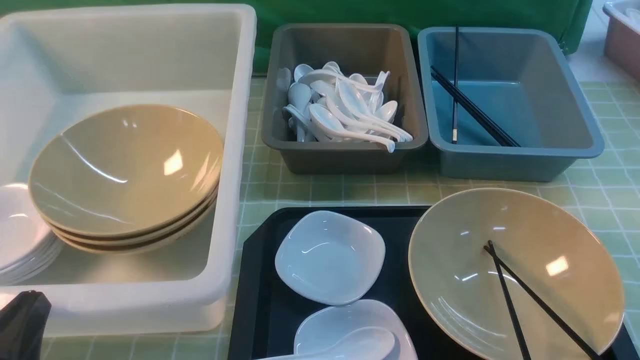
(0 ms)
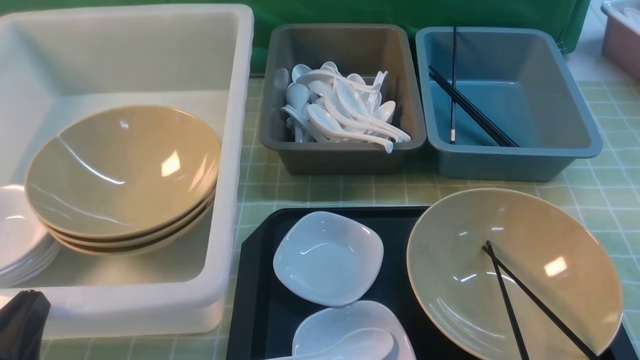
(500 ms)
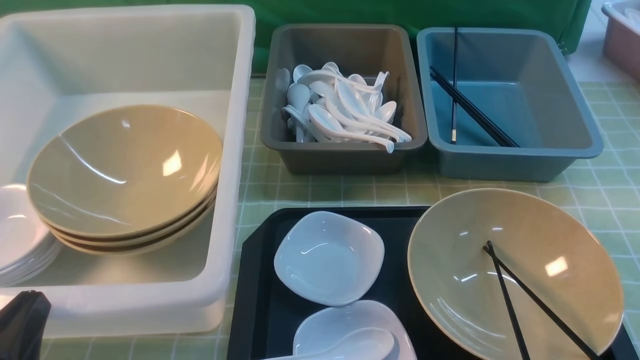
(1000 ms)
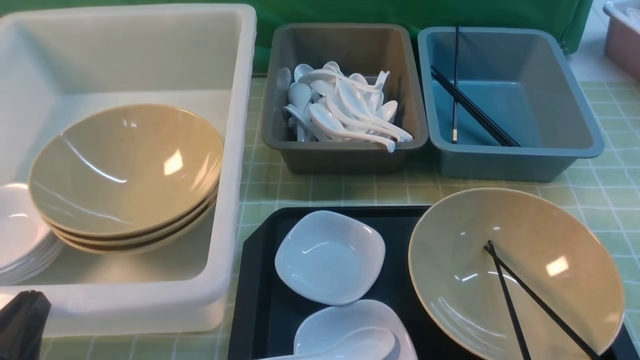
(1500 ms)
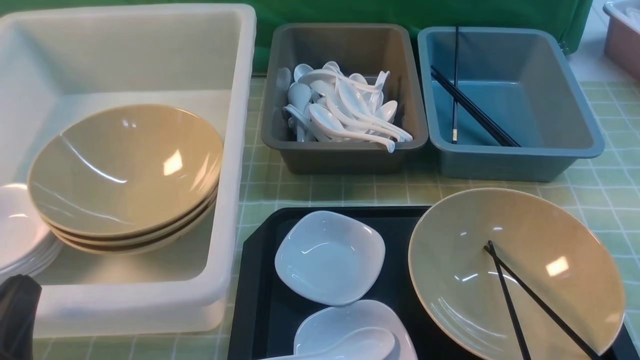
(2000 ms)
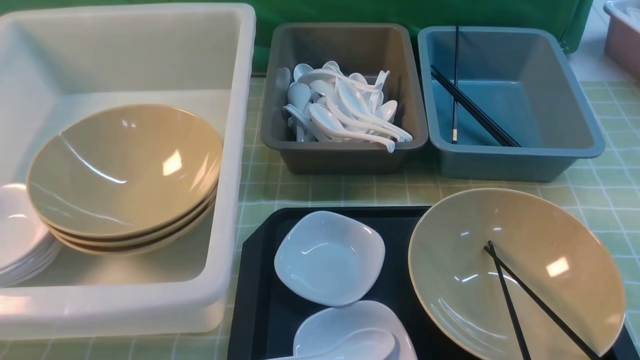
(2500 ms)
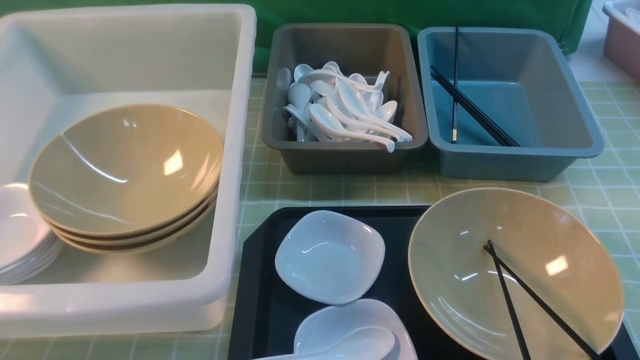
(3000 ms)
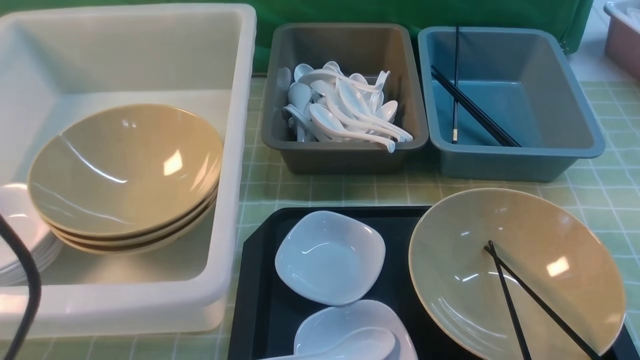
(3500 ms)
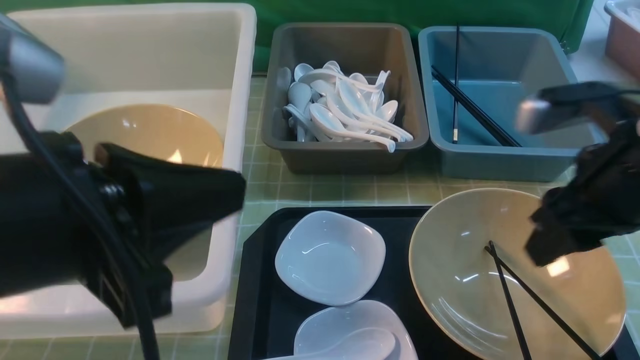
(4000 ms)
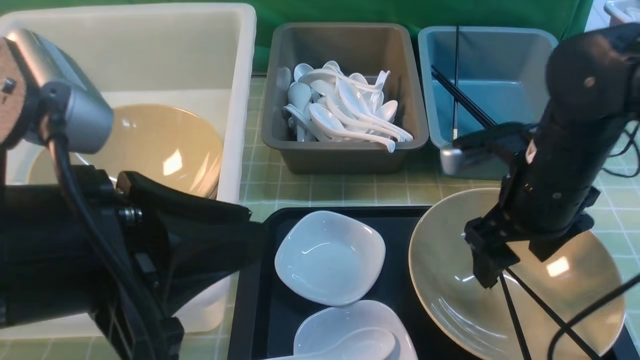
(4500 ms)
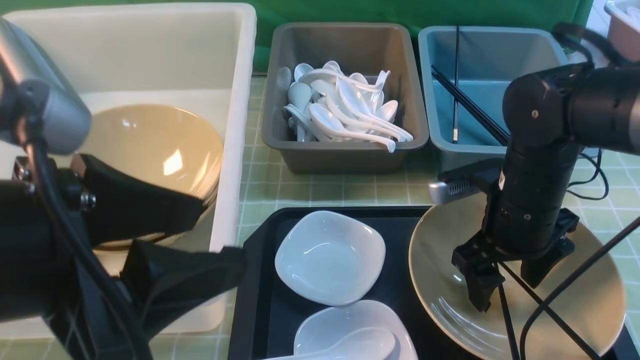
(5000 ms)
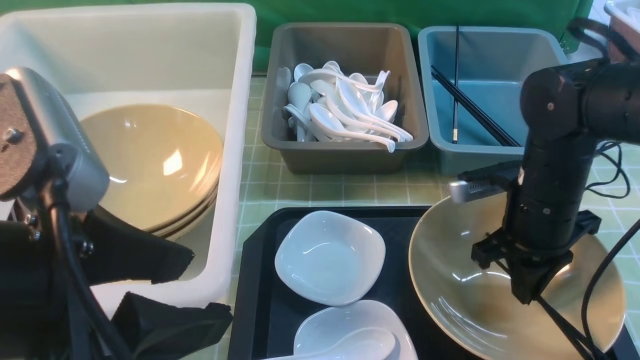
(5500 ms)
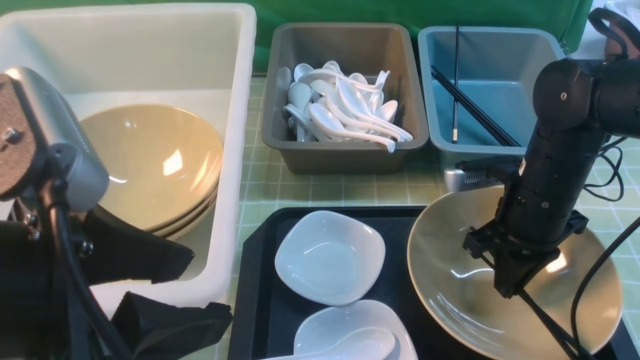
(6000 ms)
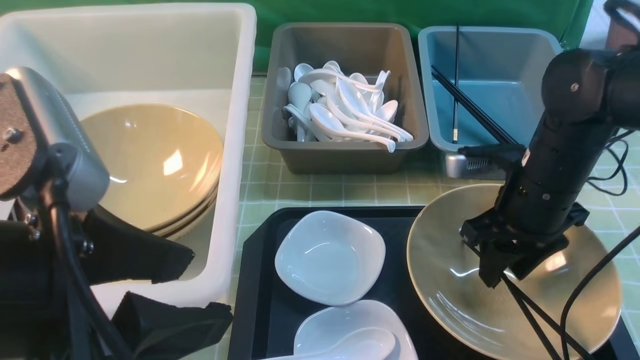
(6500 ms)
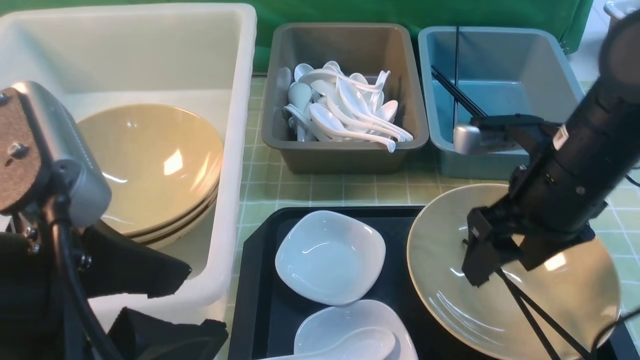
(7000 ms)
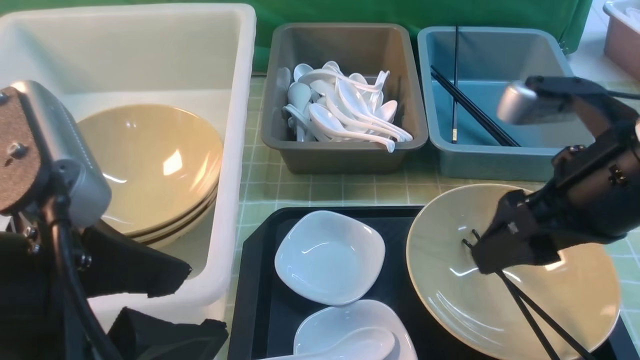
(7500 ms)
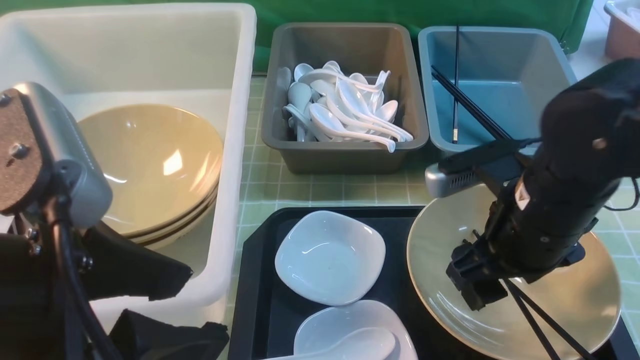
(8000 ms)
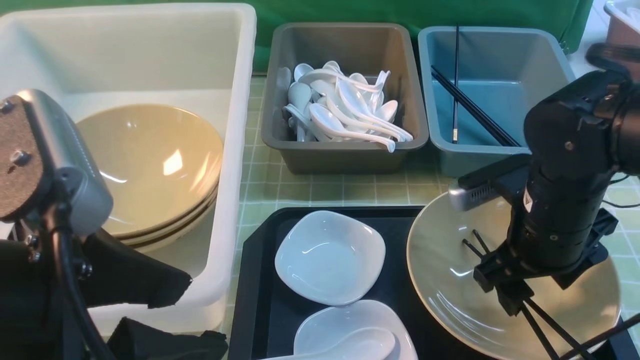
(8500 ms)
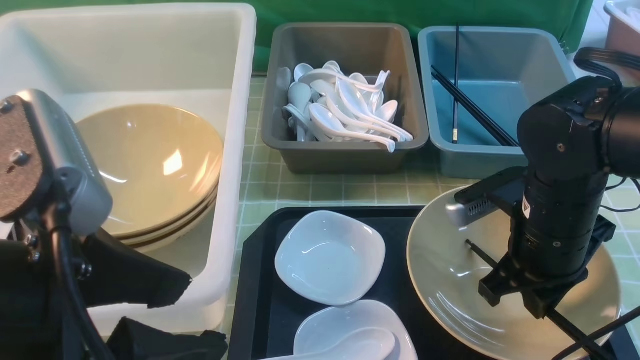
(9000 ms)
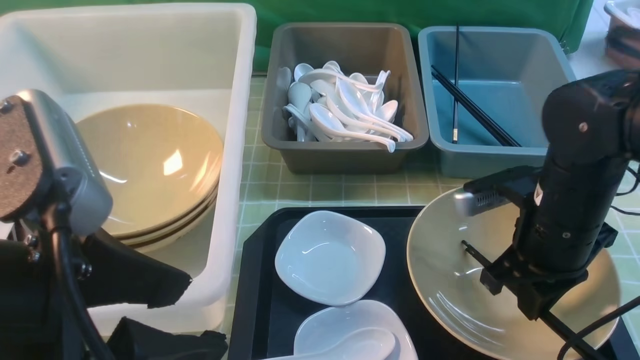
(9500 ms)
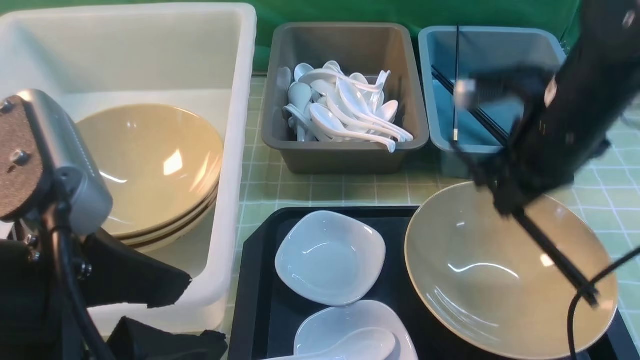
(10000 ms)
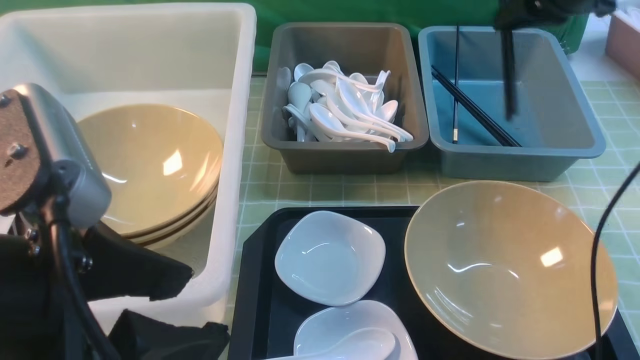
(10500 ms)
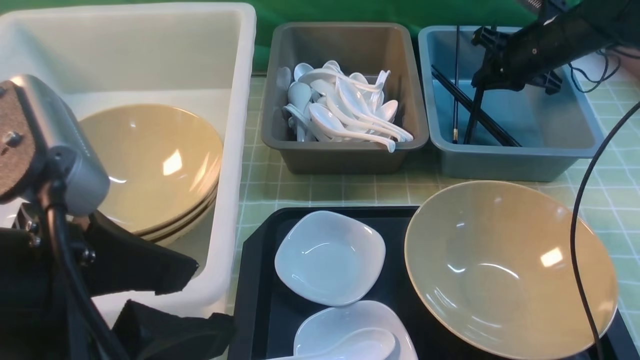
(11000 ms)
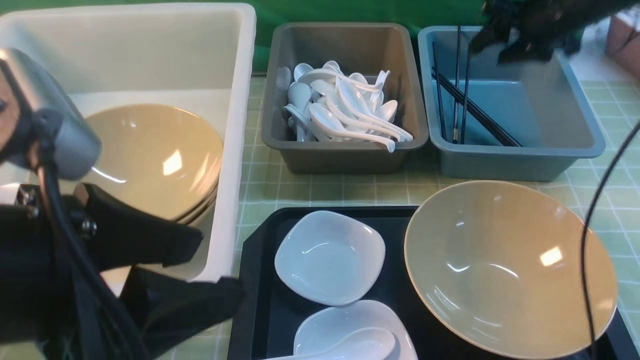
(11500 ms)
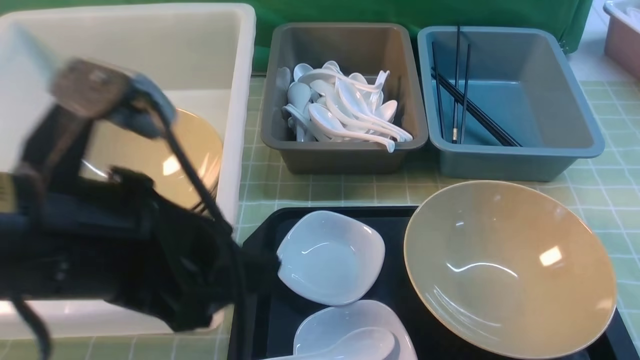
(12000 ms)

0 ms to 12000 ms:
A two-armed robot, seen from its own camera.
Task of the whole recording: on green table put chopsticks spoon bowls plates into blue grey white boxes.
Step, 0 ms to 9500 ms: use the right arm to grab the chopsticks.
2000 ms to 4000 ms: The left gripper heads upward and to the right, covering roughly 20 cm; the right gripper heads forward, upward and to the left, covering approximately 25 cm.
4000 ms to 6000 ms: The left gripper opens its fingers. The right gripper goes roughly 15 cm downward and forward, and closes its fingers.
6000 ms to 8000 ms: The right gripper goes approximately 10 cm backward and upward, and opens.
8000 ms to 10000 ms: The right gripper shifts about 10 cm forward and upward, and closes up.
10000 ms to 12000 ms: The right gripper swings up and down, some 25 cm each way, with 2 reversals, and opens up.

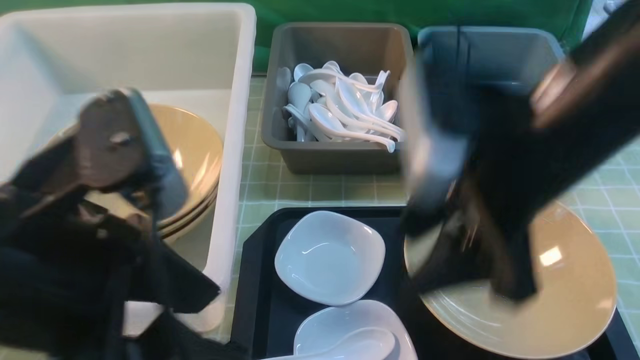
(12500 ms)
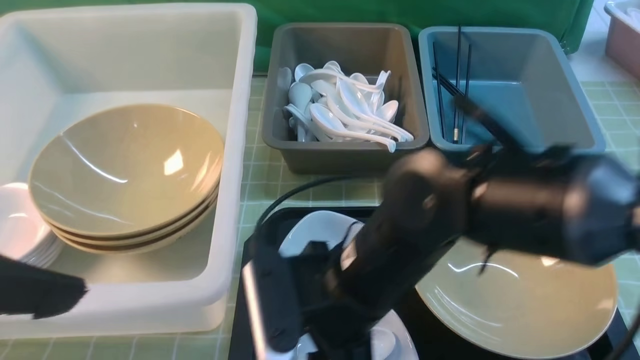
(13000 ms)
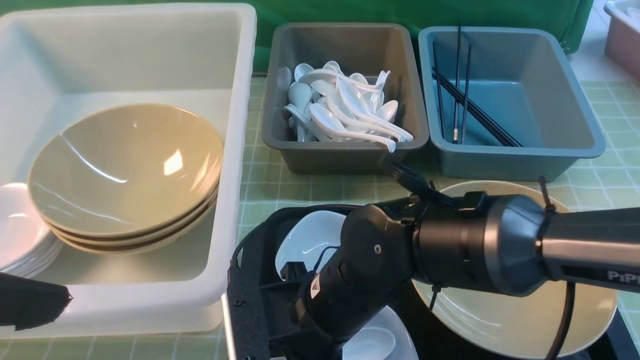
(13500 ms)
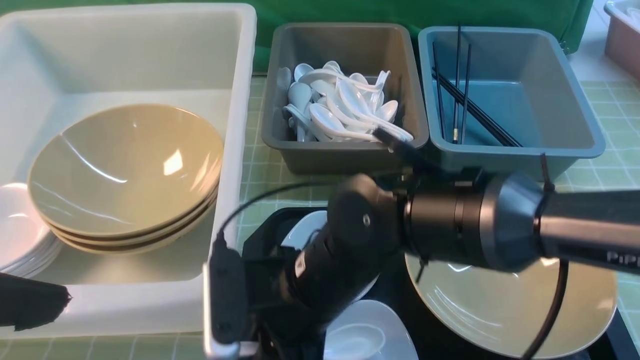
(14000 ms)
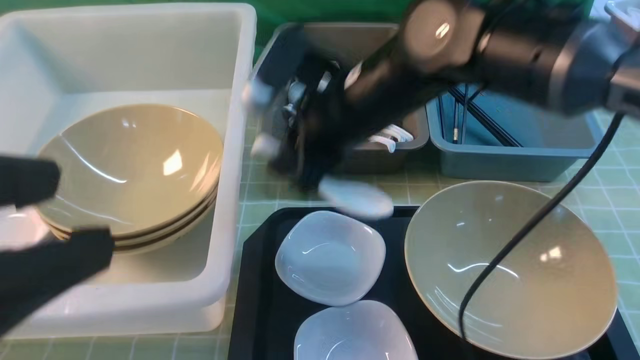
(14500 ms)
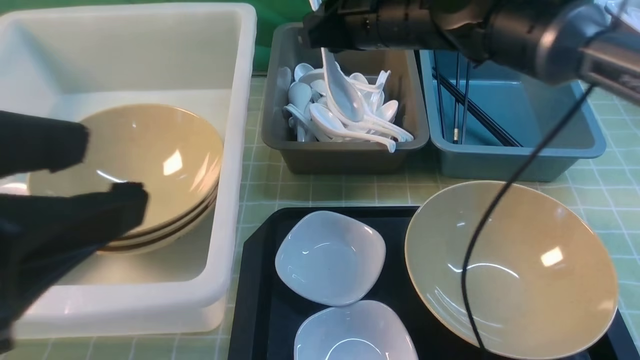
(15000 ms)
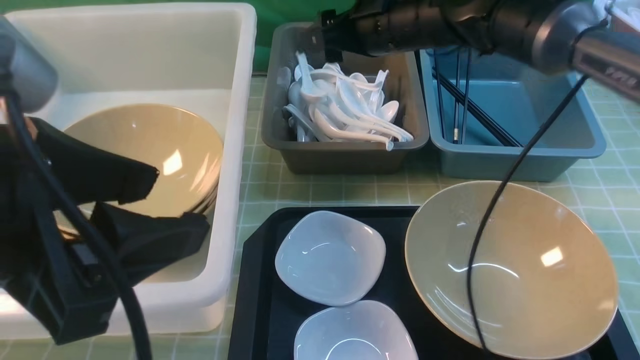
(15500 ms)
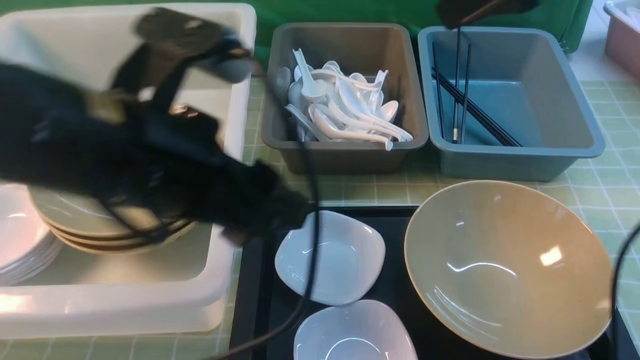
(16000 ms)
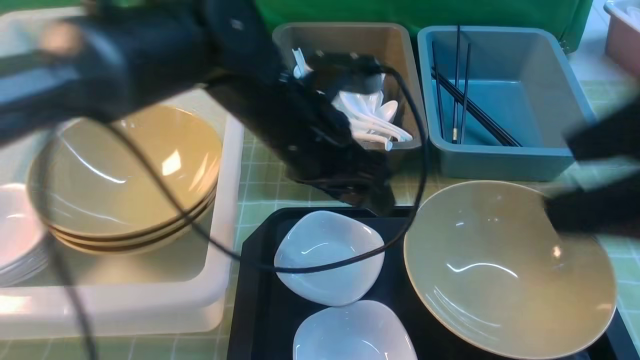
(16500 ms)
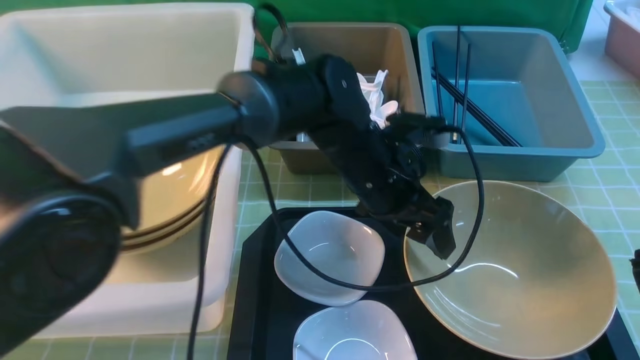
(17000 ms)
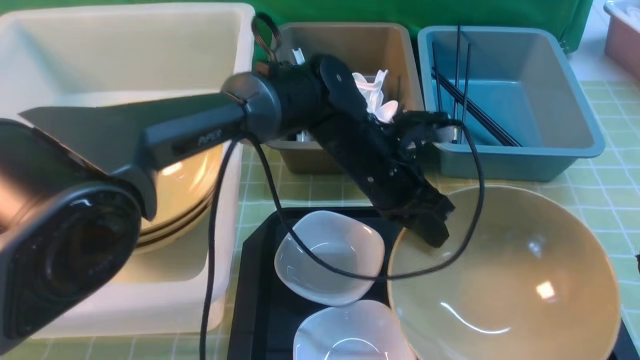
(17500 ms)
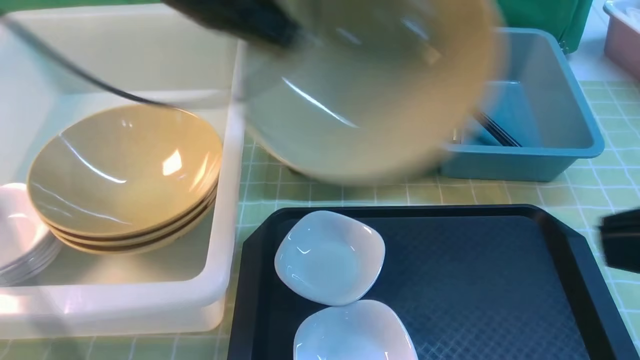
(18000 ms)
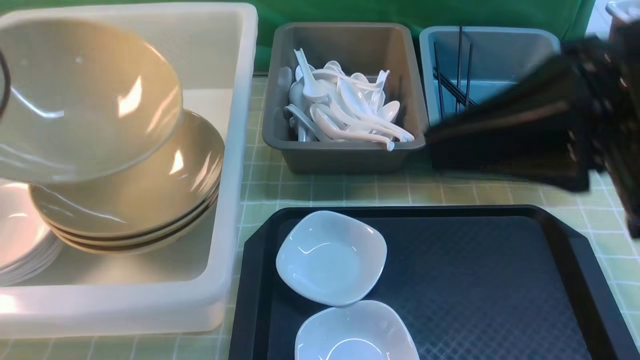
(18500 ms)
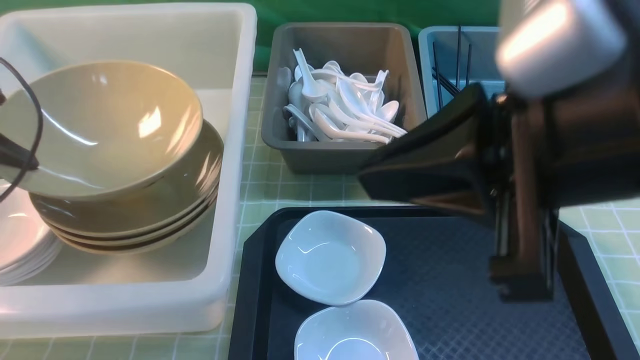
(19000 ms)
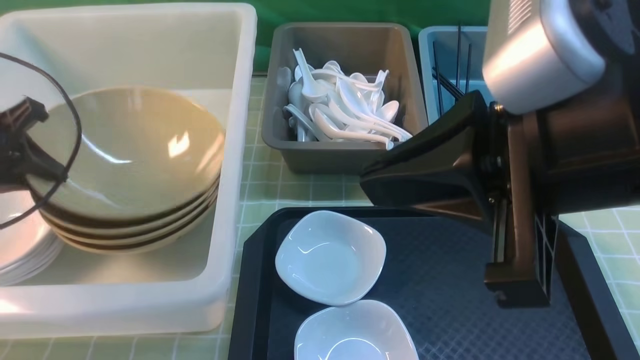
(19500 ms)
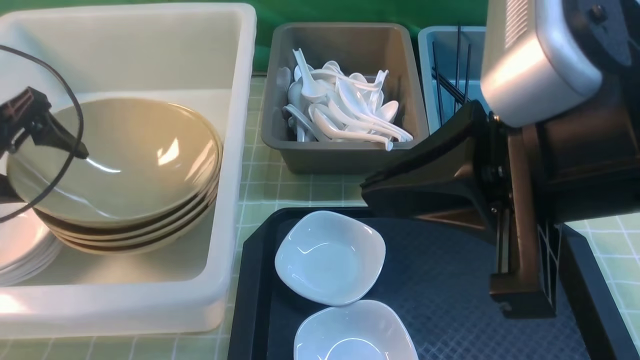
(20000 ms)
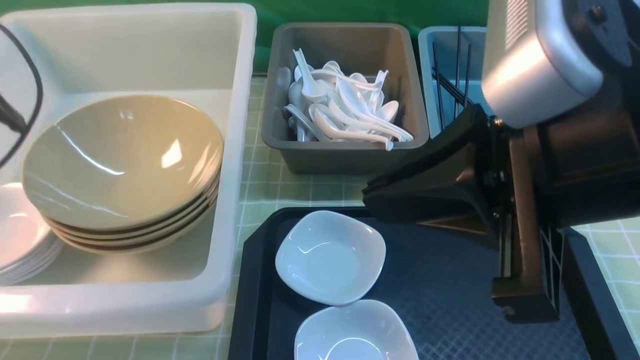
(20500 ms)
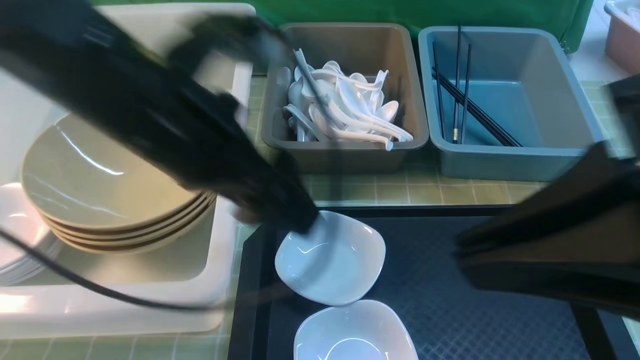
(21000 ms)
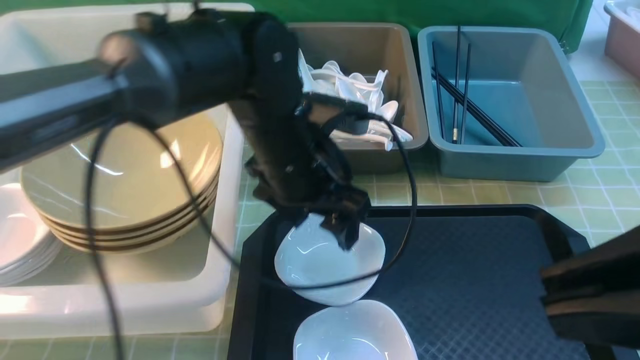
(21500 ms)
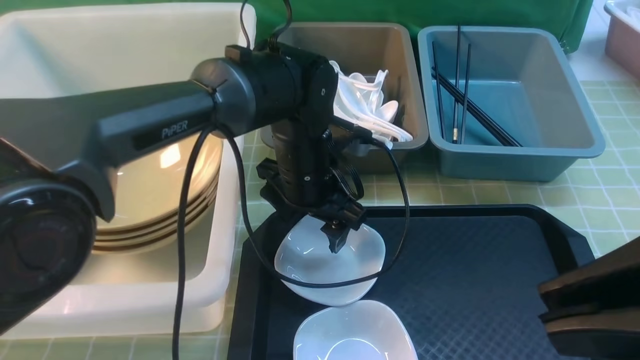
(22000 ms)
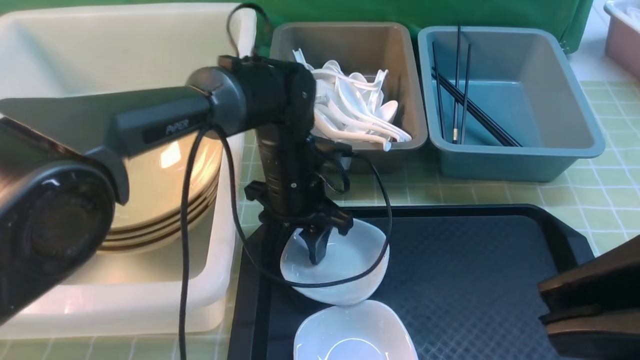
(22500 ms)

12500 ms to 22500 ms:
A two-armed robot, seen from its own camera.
Task of the whole recording: on green table put chopsticks spoon bowls plates into blue grey white boxes.
Step, 12500 ms to 14000 ms: use the right arm to grab the soup spoon in the middle.
Step, 14500 ms to 15000 ms: use the right arm to put the soup spoon into the small storage box in the middle.
Step, 15500 ms to 17000 ms: use the left arm to grab the yellow noodle bowl on the left.
Step, 17500 ms to 20000 ms: use the left arm to put the noodle bowl into the large storage box on the left.
12500 ms to 14500 ms: The left gripper is displaced to the left and upward by some 5 cm; the right gripper travels forward and to the left by about 15 cm, travels downward and back again, some 15 cm each way, and closes.
14500 ms to 16500 ms: The left gripper travels forward, to the right and downward by roughly 35 cm; the right gripper moves backward, to the right and upward, some 30 cm, and opens.
16500 ms to 18500 ms: The left gripper shifts approximately 35 cm to the left, and closes up. Meanwhile the right gripper moves some 5 cm backward and comes back, and closes.
18500 ms to 20500 ms: The left gripper goes roughly 5 cm to the right, goes downward and returns, approximately 10 cm each way, and opens up.
20500 ms to 22500 ms: The right gripper travels backward and to the right by some 10 cm. Meanwhile the left gripper shifts approximately 35 cm to the right and downward, and closes its fingers.
